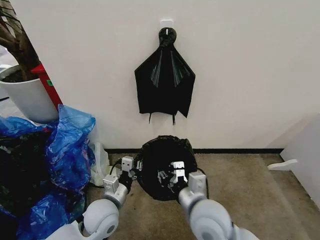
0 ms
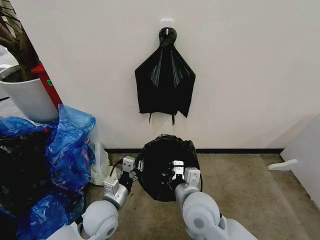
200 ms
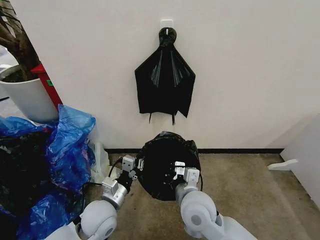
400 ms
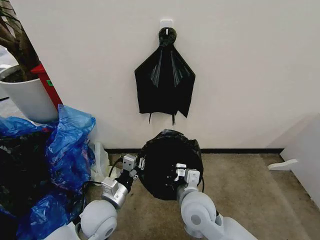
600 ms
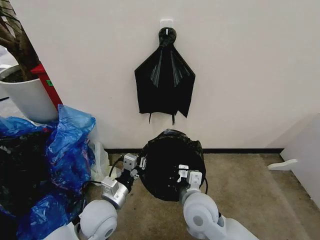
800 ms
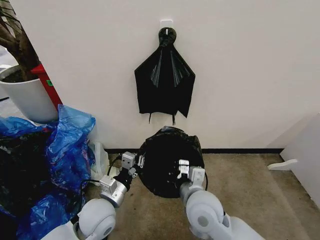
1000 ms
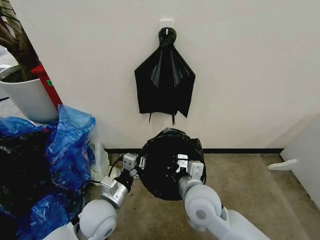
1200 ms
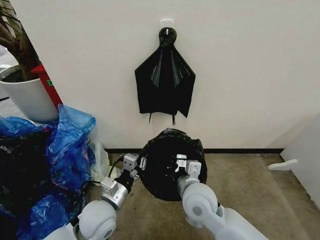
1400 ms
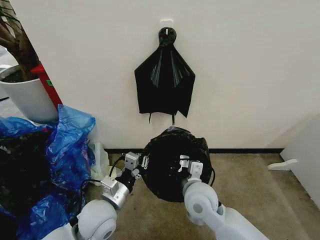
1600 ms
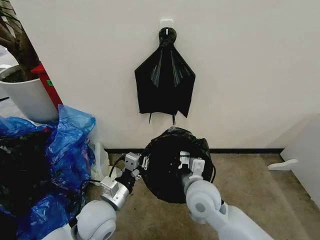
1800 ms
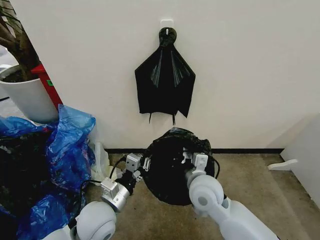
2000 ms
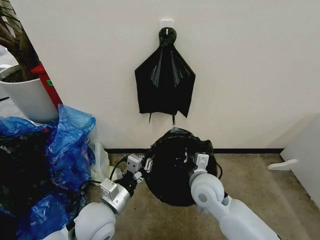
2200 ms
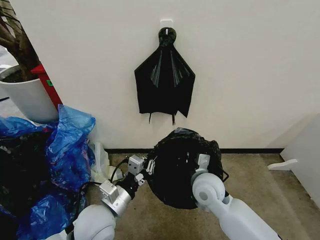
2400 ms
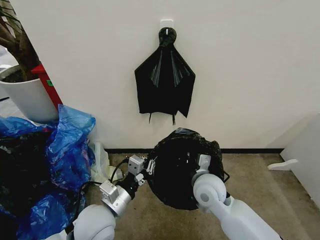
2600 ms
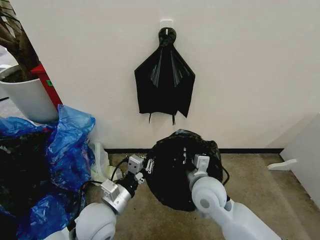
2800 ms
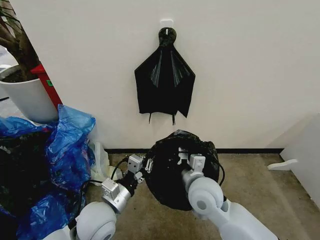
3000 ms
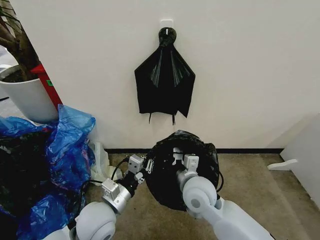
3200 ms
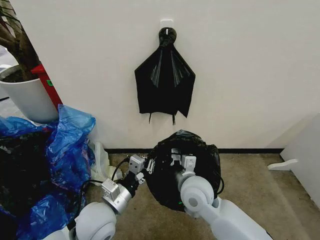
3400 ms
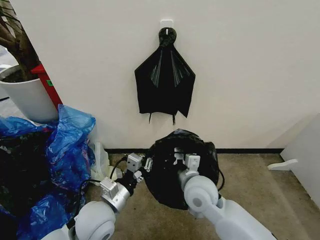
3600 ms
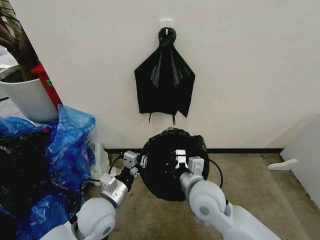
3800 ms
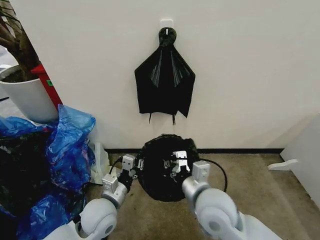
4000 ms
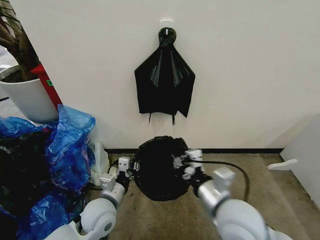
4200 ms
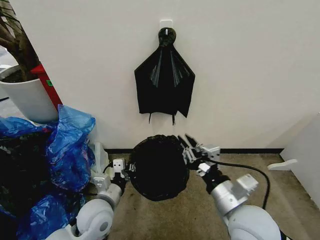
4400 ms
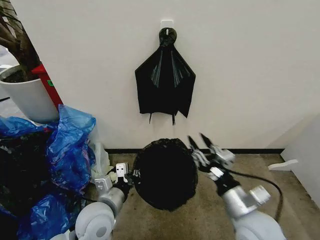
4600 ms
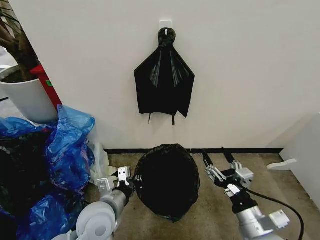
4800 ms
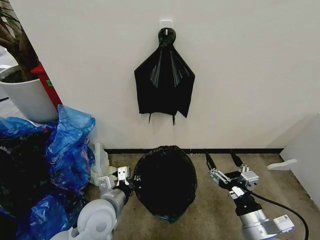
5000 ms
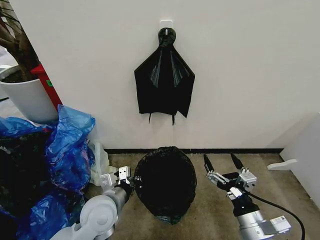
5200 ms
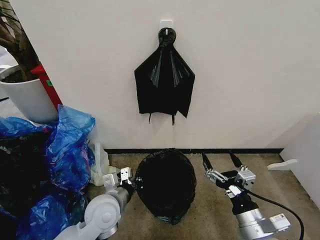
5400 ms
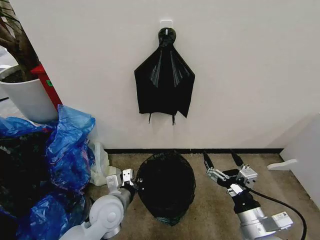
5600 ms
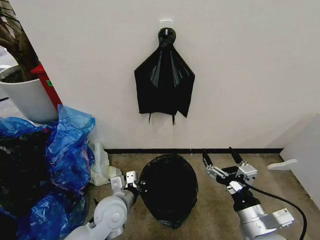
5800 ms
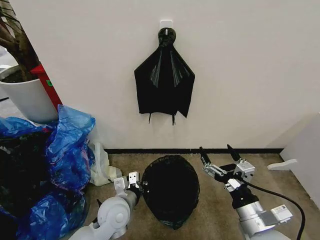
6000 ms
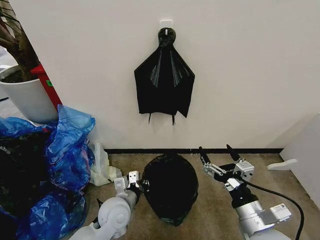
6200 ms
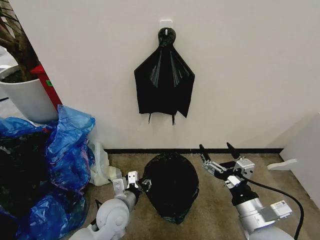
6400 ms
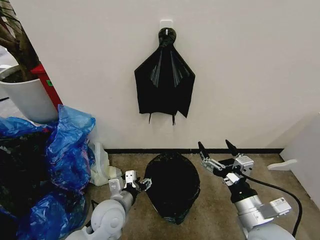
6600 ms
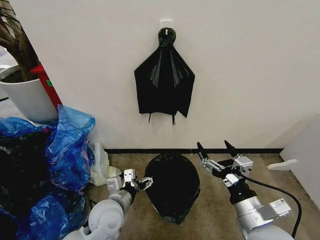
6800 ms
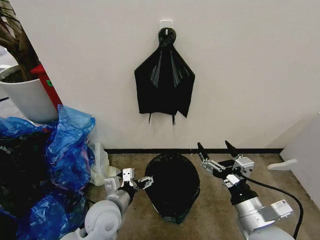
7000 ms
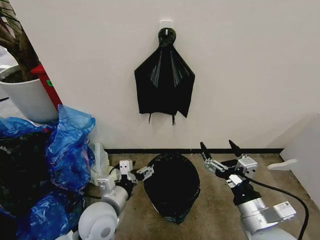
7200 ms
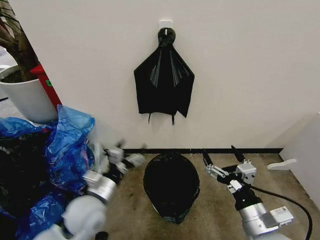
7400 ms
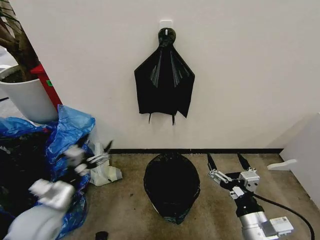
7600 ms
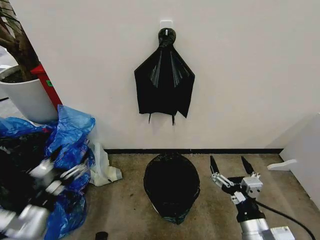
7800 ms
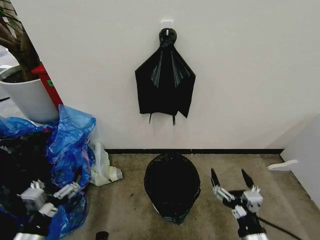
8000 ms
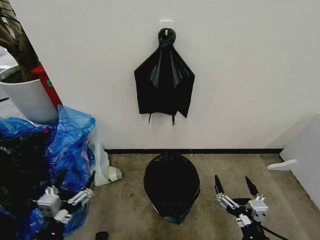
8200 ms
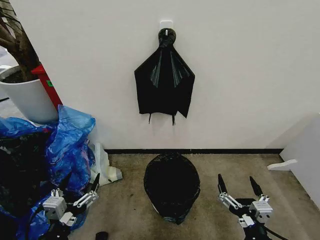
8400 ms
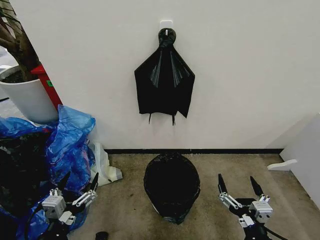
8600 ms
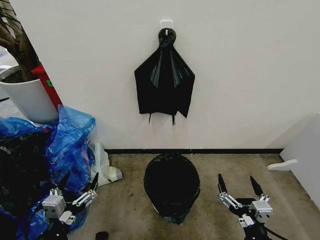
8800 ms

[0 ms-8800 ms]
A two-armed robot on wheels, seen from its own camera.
Task of the whole recording: Place the garbage bag over the trash bin.
0 ms to 1400 ms: The right gripper is displaced forward by some 5 cm.
1400 ms to 3000 ms: The grippers stay close to where they were, moving slightly.
3000 ms to 4400 ms: The right gripper goes about 10 cm backward and to the right.
4400 ms to 5800 ms: The right gripper travels downward and to the right by approximately 10 cm, and opens.
5800 ms to 7400 ms: The left gripper goes approximately 5 cm to the left, and opens its fingers.
7400 ms to 8800 ms: The right gripper heads backward and downward, covering roughly 10 cm, while the left gripper heads backward, covering approximately 15 cm.

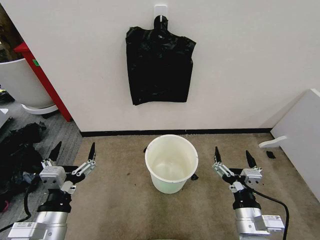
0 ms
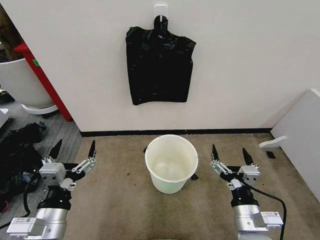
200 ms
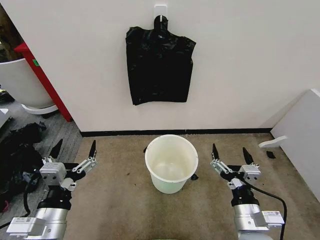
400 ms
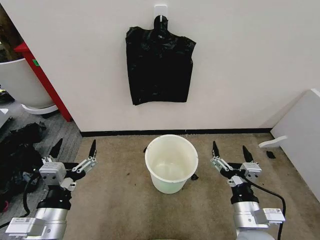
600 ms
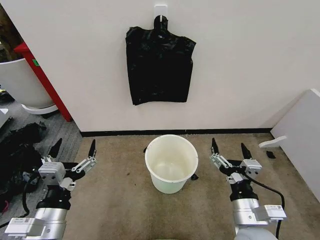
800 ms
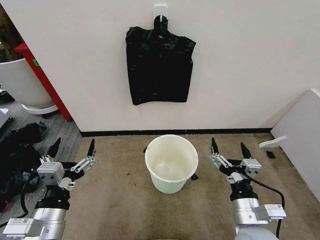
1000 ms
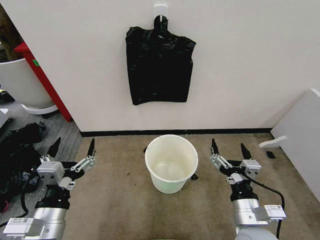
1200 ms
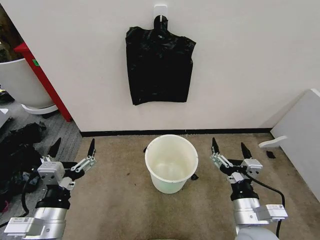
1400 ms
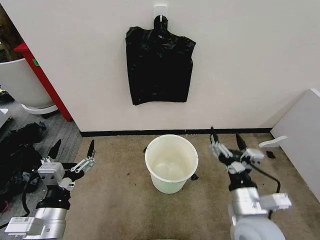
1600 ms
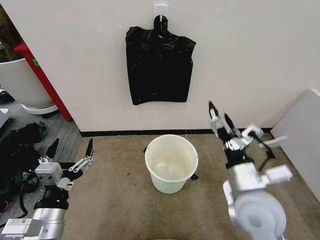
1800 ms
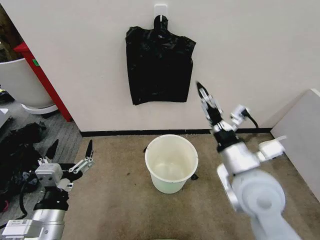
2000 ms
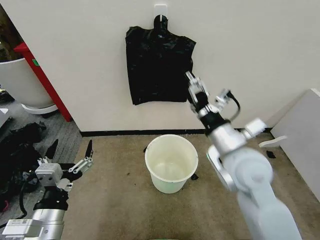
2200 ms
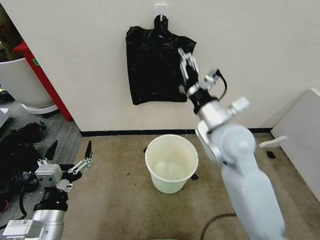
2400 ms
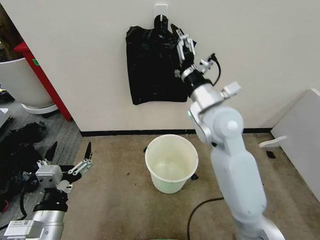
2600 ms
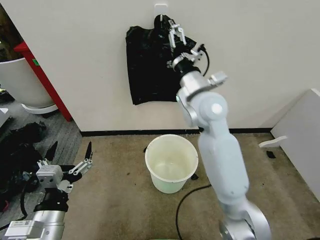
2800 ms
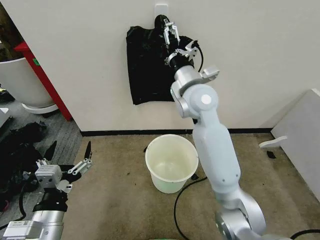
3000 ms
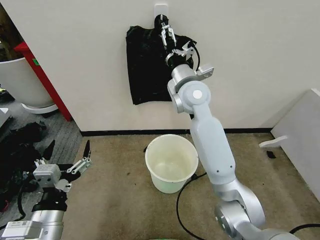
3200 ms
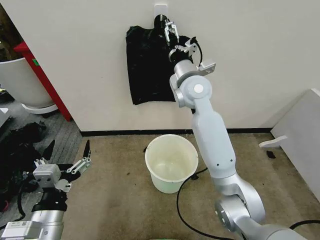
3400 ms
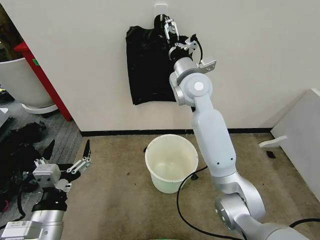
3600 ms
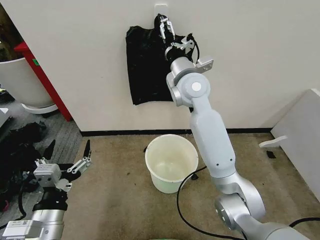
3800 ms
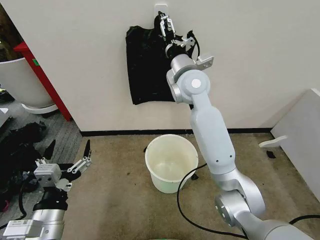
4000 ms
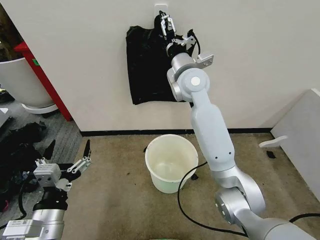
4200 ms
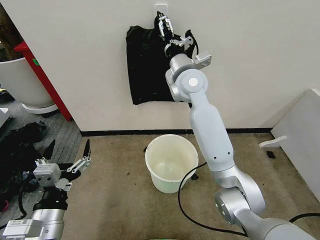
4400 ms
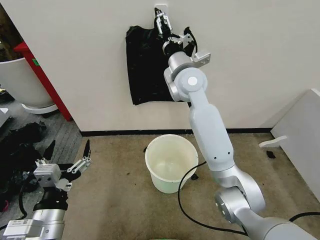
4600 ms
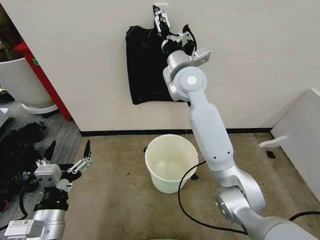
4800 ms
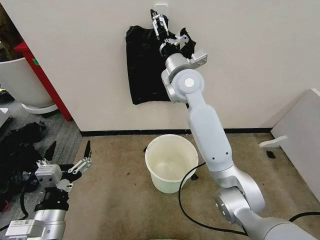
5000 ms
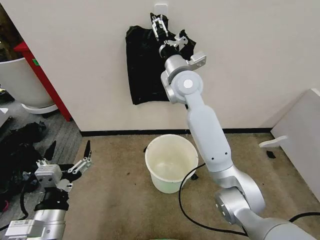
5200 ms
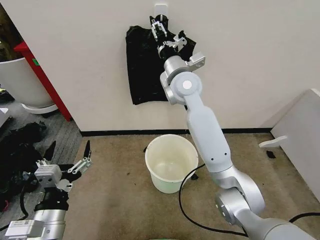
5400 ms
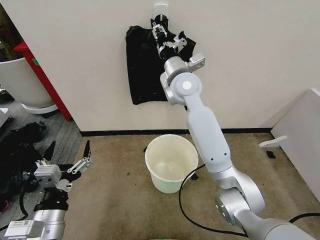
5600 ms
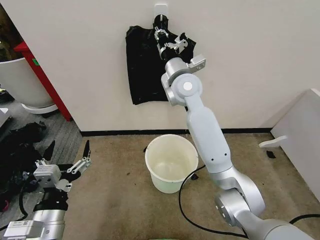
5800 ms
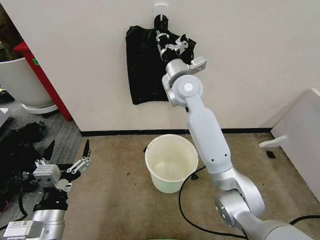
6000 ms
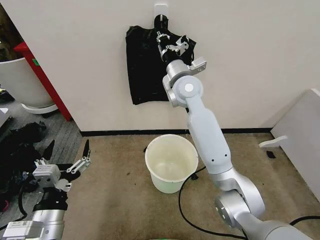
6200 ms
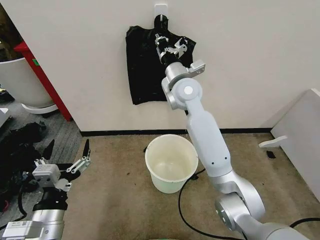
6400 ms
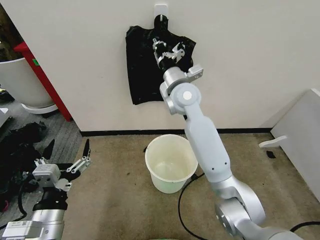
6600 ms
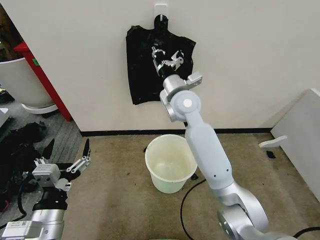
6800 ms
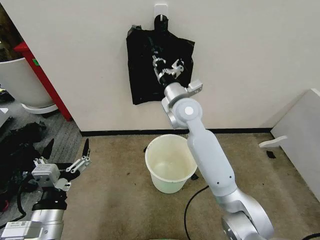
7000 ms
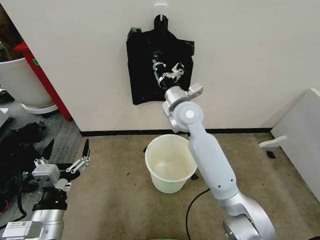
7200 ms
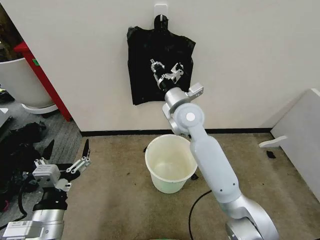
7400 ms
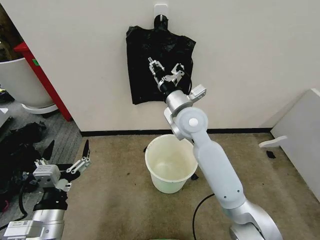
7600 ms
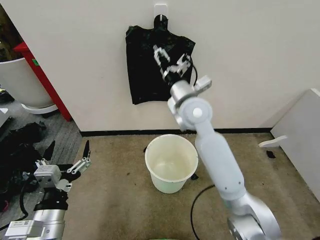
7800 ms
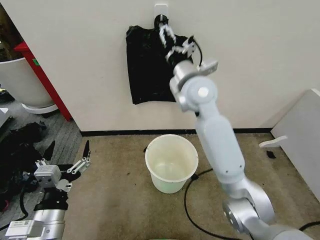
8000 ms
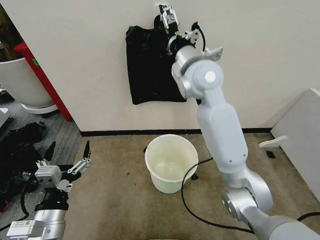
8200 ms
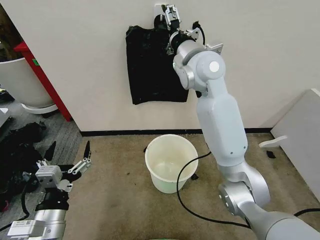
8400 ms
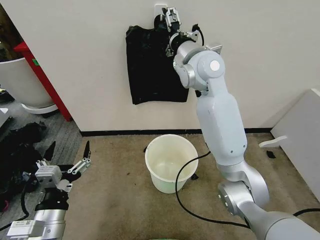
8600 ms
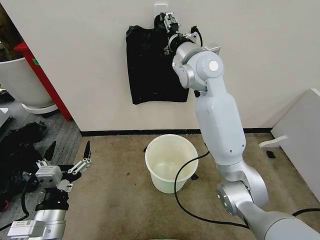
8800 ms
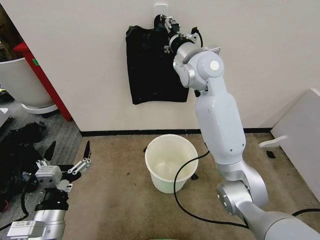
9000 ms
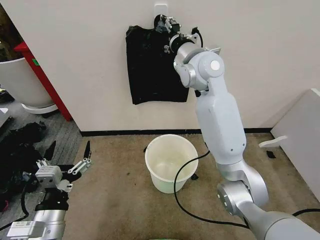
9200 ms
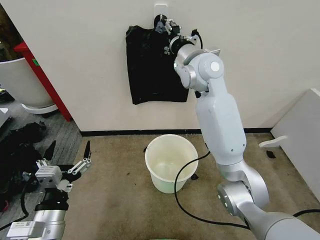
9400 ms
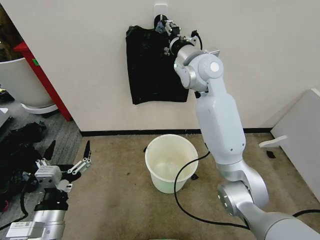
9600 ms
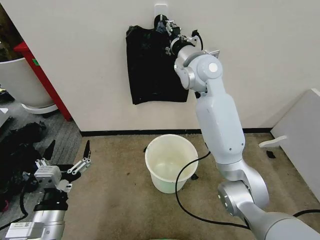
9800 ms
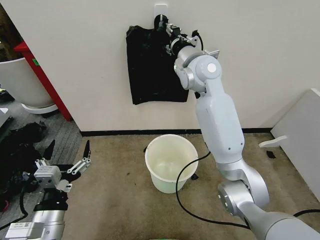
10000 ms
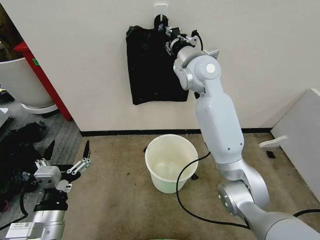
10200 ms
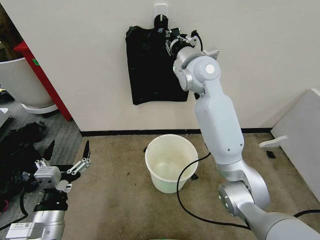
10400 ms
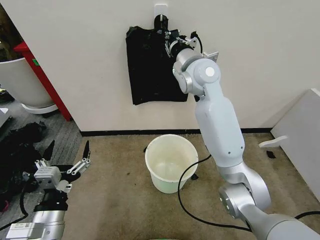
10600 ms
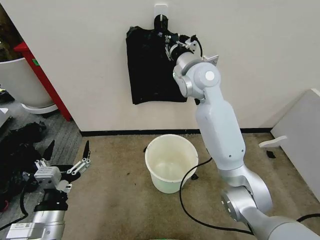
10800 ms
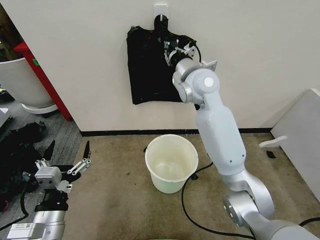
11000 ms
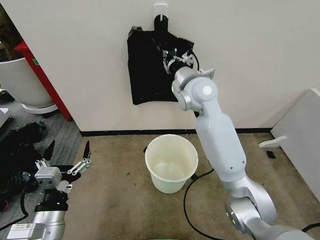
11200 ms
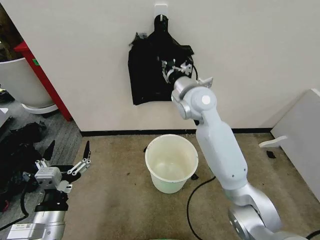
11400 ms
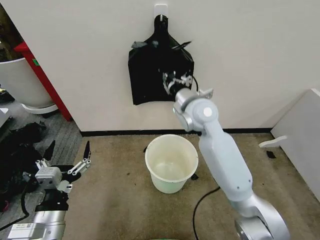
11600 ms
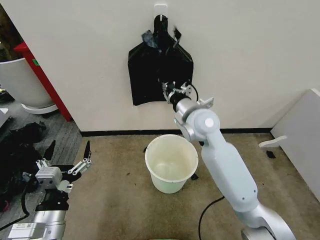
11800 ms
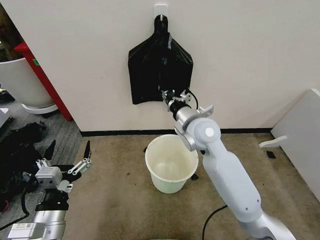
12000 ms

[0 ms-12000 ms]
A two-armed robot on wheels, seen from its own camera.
Task of the whole recording: Place the garbage bag over the trash bin.
1600 ms to 3000 ms: The right gripper moves forward, upward and to the left, approximately 35 cm.
3000 ms to 4400 ms: The right gripper heads forward, covering some 5 cm.
4400 ms to 6000 ms: The right gripper closes.
6000 ms to 7600 ms: The right gripper is displaced backward and downward by approximately 10 cm.
7600 ms to 9000 ms: The right gripper goes some 15 cm upward and forward, and opens and closes again.
9000 ms to 10400 ms: The right gripper closes its fingers.
10400 ms to 12000 ms: The right gripper goes roughly 15 cm downward and backward.

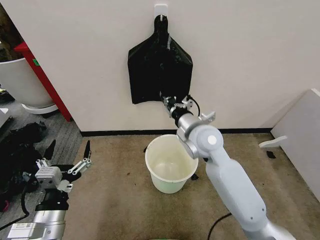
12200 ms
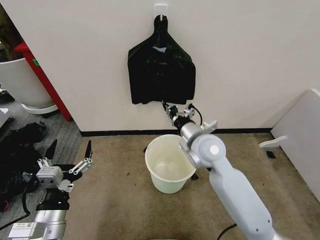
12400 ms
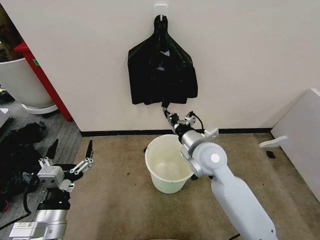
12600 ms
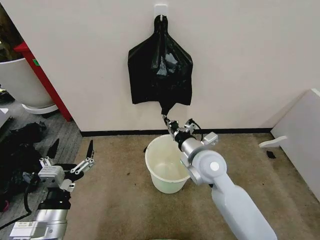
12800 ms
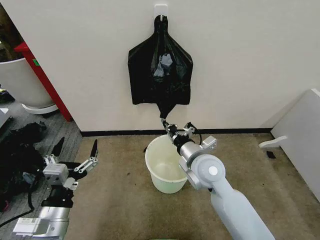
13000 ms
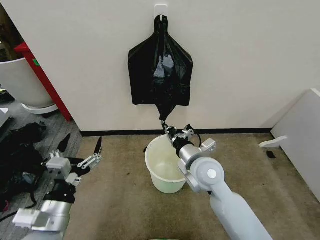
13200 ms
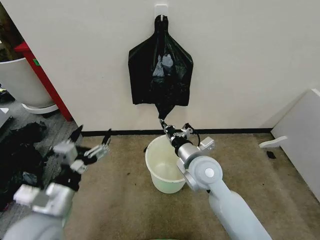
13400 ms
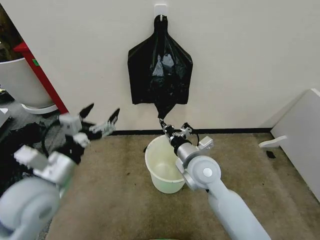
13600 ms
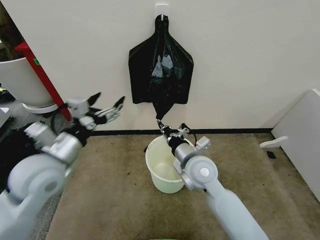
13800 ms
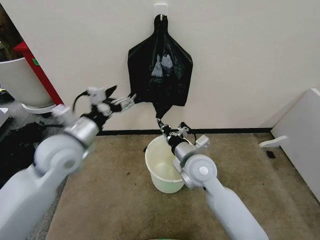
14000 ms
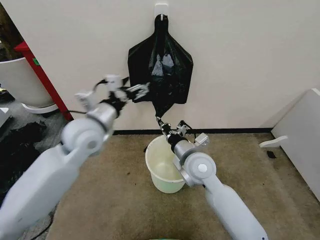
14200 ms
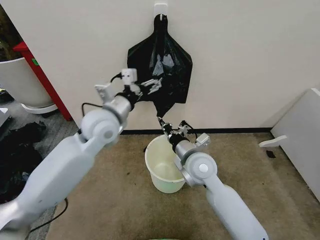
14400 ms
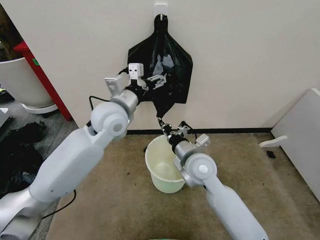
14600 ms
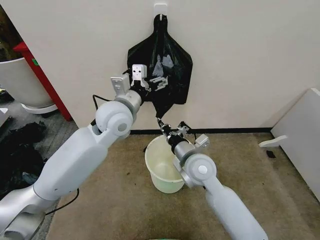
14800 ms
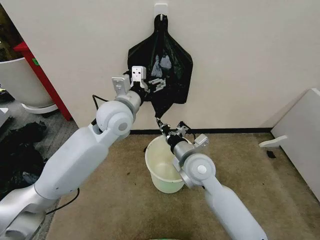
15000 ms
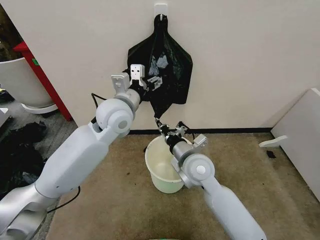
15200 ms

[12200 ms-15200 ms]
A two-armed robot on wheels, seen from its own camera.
Task of the whole recording: Place the garbage bag over the trash bin.
12200 ms to 13800 ms: The left gripper moves forward and upward, some 20 cm, while the right gripper goes roughly 10 cm downward and backward.
13800 ms to 15200 ms: The left gripper heads forward and to the right, covering approximately 20 cm.
